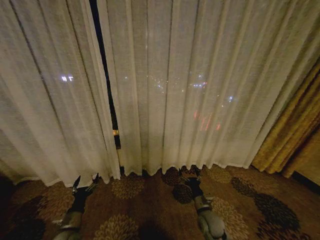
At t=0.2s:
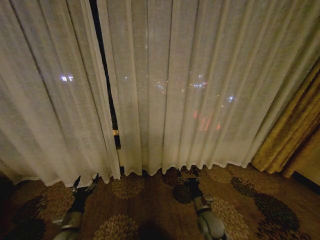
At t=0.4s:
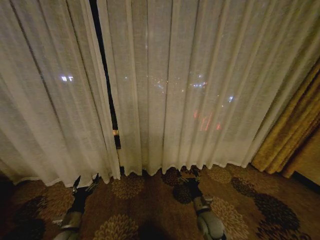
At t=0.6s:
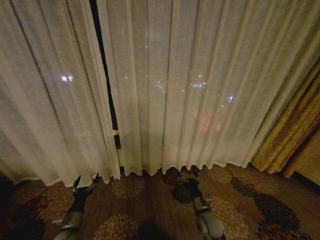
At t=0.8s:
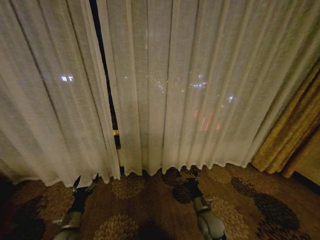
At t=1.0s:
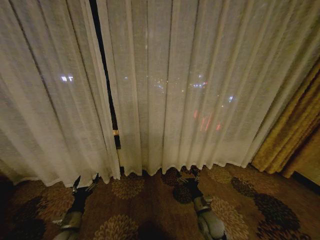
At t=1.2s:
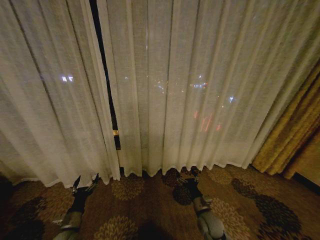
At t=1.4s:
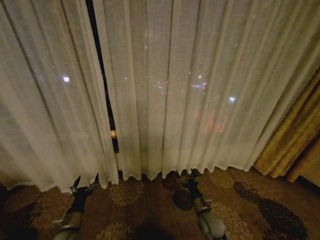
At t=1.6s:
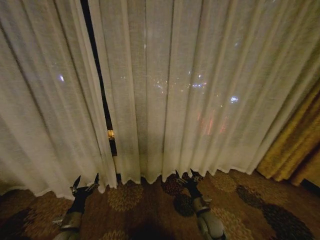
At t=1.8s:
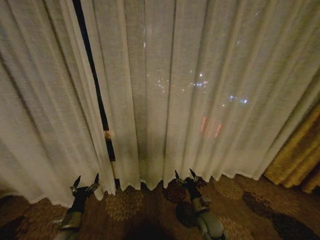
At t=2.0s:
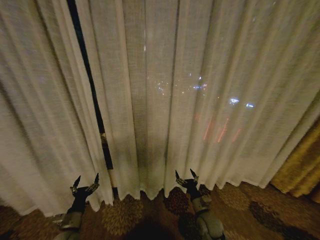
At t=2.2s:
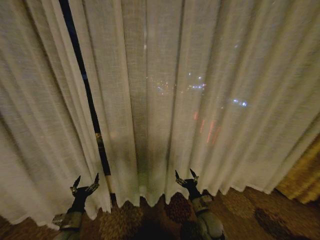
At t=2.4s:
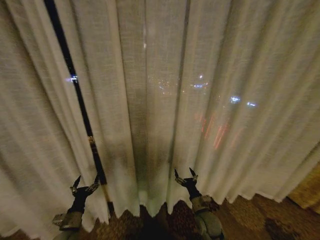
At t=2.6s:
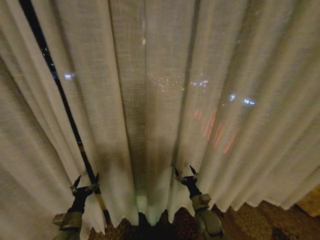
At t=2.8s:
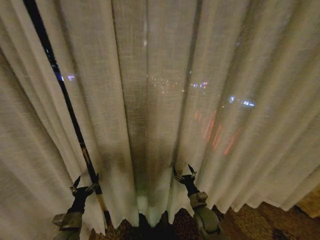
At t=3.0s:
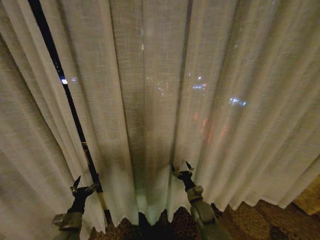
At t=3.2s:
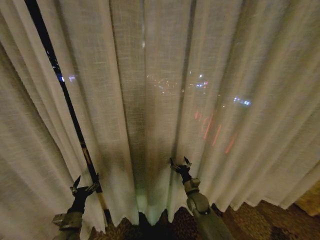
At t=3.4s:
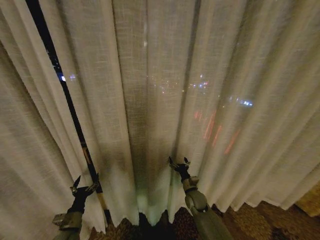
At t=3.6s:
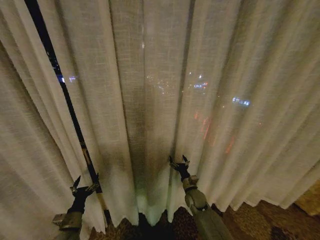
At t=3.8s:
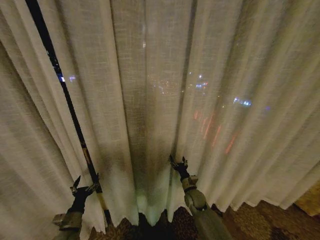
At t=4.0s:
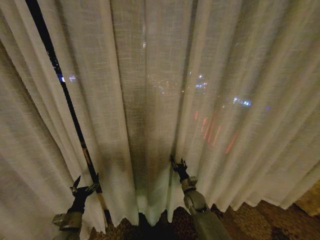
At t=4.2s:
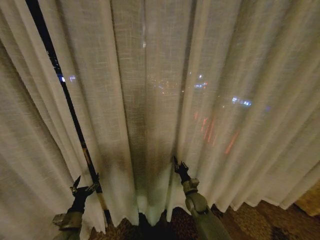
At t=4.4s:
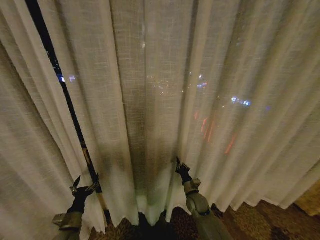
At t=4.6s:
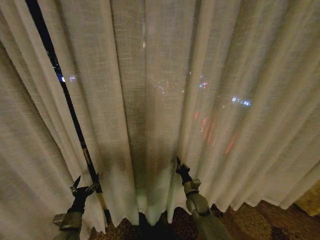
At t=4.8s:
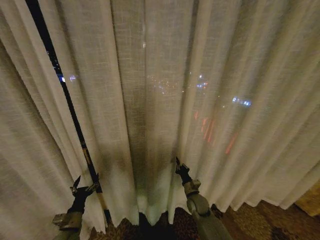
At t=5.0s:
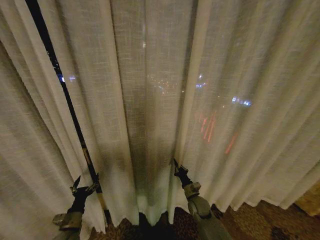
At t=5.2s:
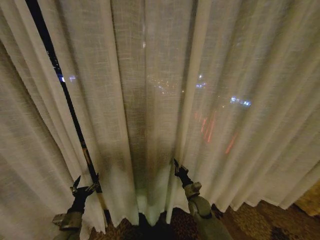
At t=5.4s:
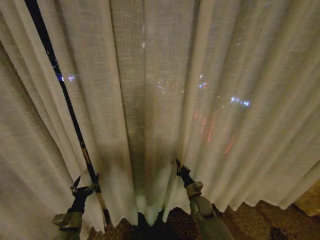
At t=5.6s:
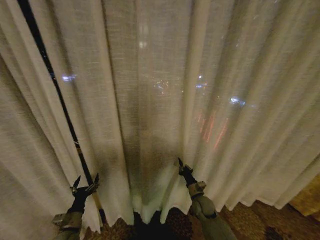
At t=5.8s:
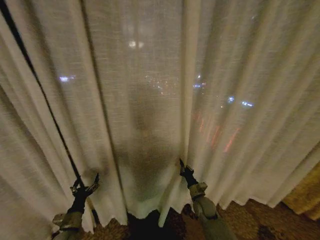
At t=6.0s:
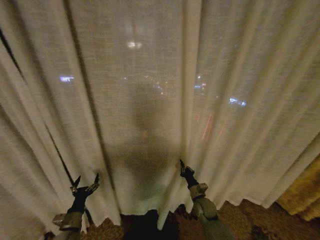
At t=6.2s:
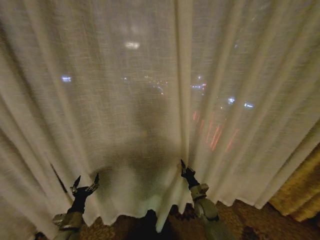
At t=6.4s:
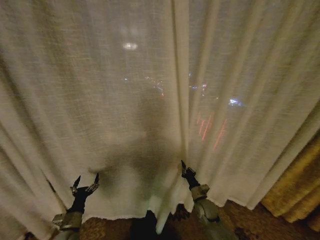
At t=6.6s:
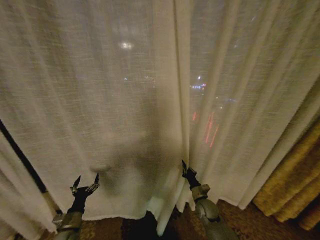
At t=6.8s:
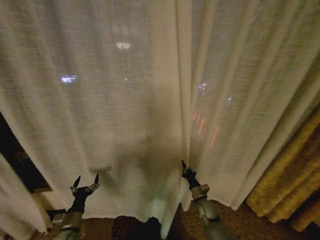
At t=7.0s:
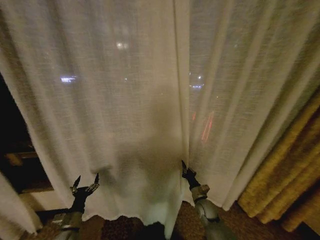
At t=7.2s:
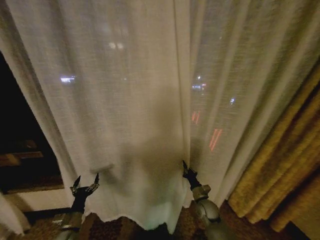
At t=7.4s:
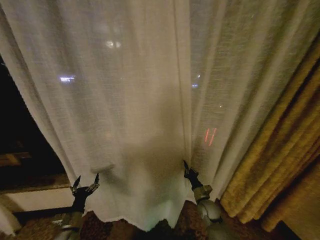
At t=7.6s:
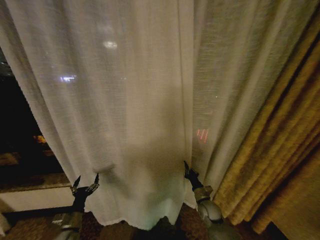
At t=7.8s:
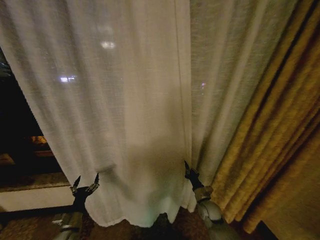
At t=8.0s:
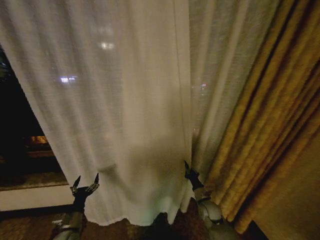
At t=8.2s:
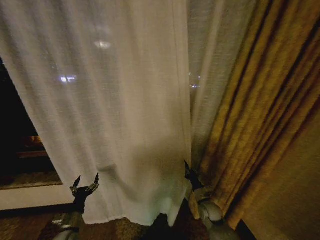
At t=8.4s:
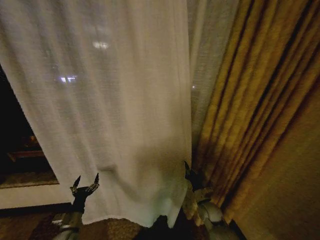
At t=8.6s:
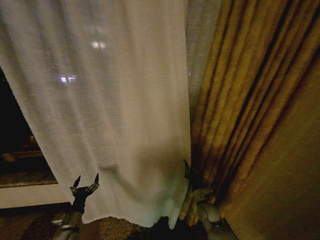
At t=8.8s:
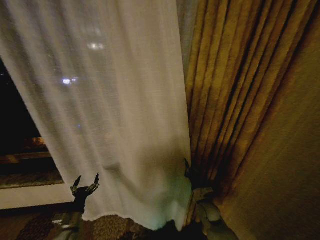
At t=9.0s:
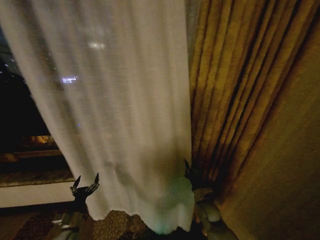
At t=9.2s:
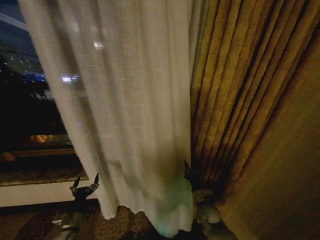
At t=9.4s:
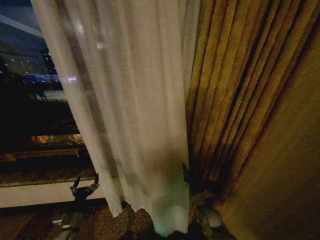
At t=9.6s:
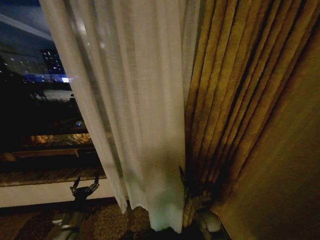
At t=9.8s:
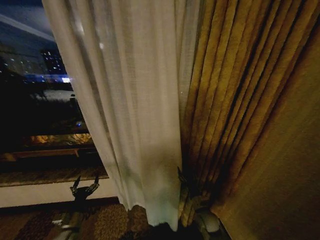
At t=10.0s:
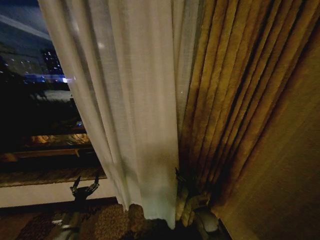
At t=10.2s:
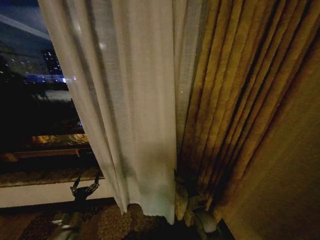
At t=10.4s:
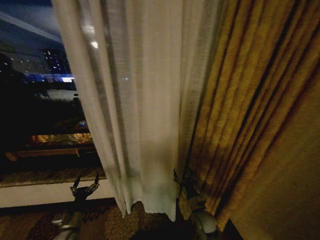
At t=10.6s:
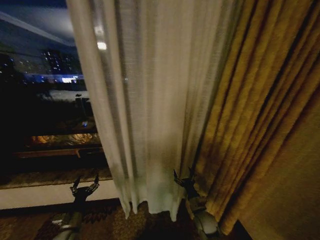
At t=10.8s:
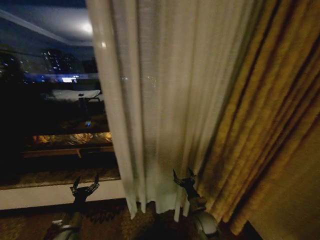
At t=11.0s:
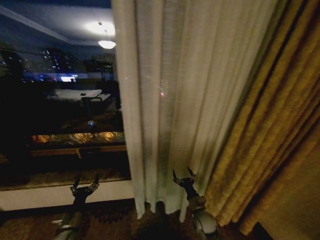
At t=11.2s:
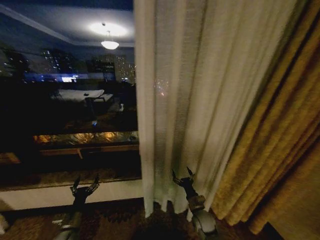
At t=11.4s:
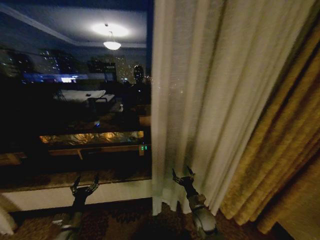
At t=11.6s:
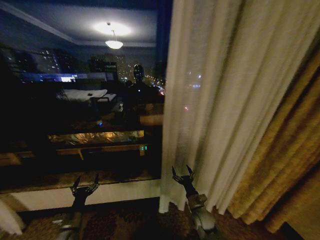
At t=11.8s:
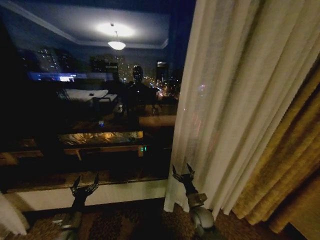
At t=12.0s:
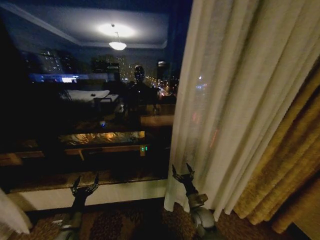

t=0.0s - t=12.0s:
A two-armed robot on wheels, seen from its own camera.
Task of the whole recording: Open the curtains by pulling them apart, changing their state from closed to fully open.
t=3.0s - t=4.4s: The right gripper closes.
t=9.0s - t=10.4s: The right gripper opens its fingers.

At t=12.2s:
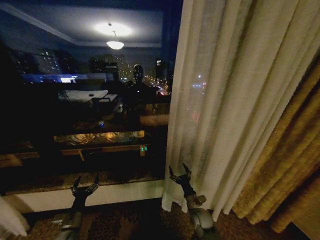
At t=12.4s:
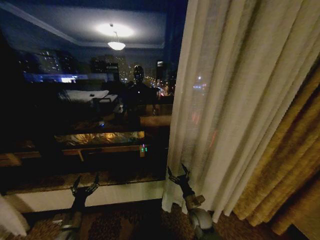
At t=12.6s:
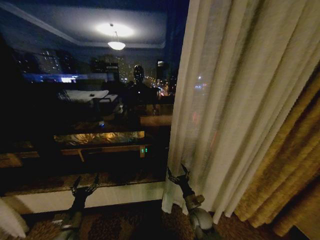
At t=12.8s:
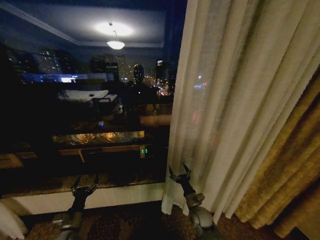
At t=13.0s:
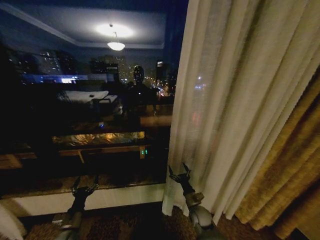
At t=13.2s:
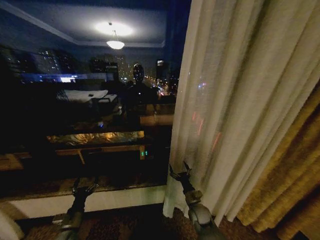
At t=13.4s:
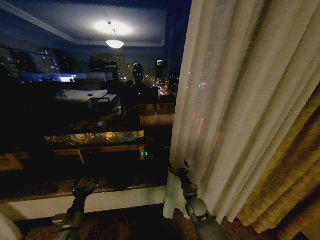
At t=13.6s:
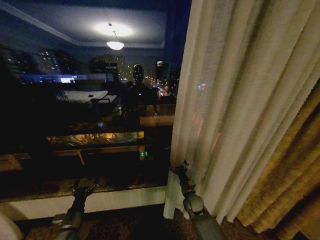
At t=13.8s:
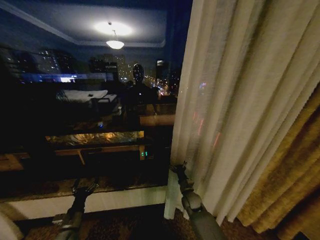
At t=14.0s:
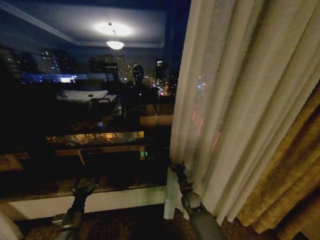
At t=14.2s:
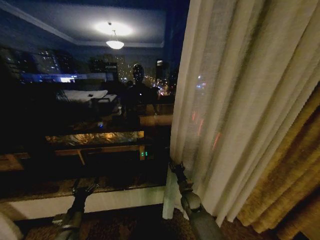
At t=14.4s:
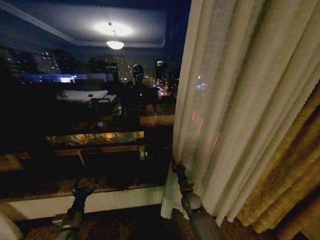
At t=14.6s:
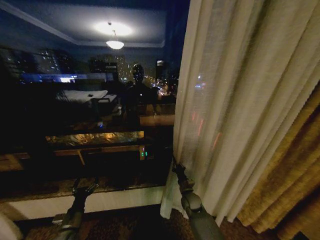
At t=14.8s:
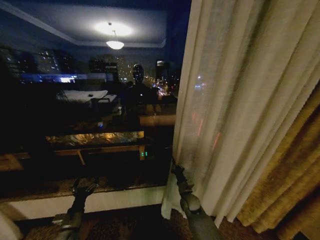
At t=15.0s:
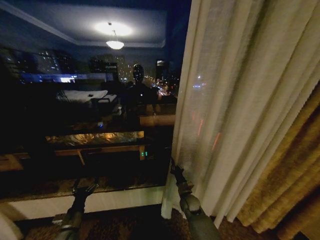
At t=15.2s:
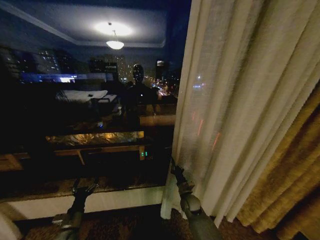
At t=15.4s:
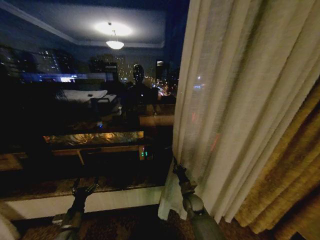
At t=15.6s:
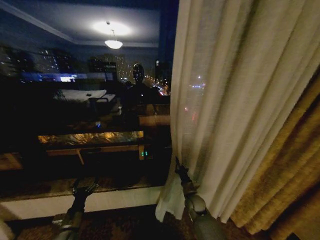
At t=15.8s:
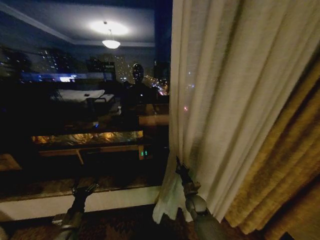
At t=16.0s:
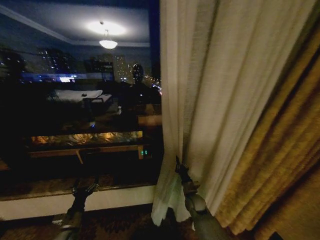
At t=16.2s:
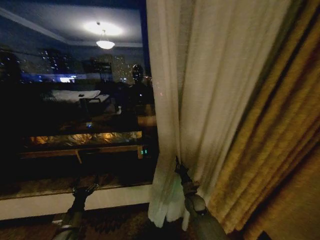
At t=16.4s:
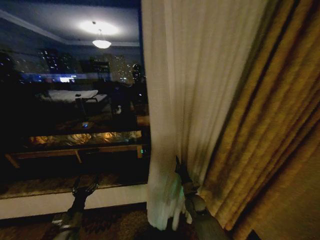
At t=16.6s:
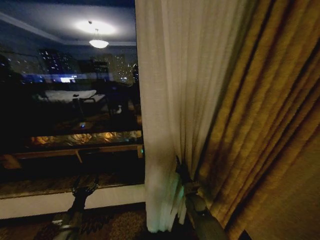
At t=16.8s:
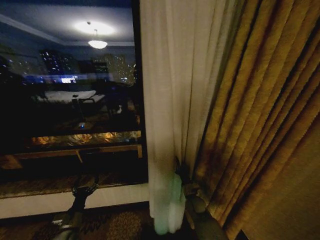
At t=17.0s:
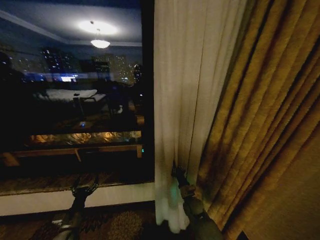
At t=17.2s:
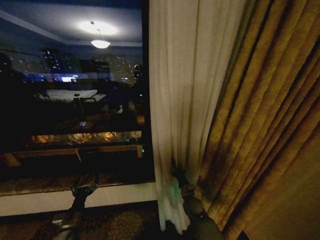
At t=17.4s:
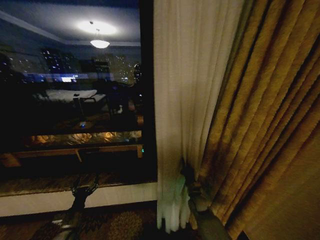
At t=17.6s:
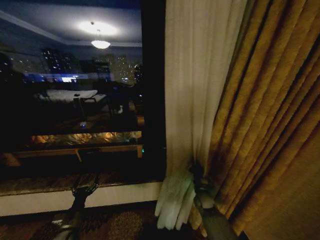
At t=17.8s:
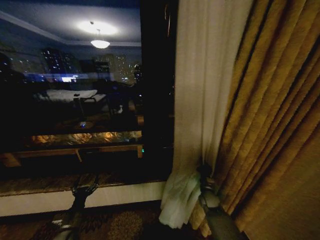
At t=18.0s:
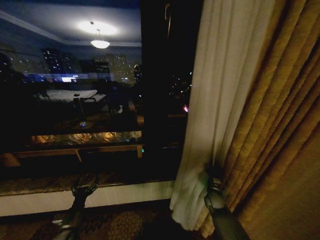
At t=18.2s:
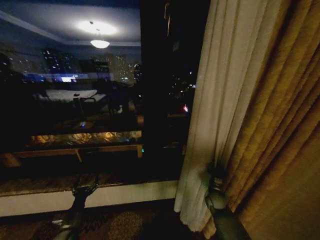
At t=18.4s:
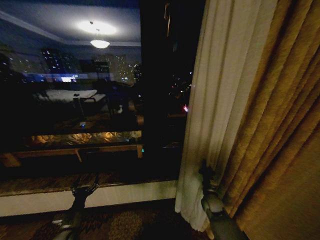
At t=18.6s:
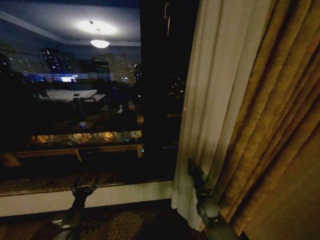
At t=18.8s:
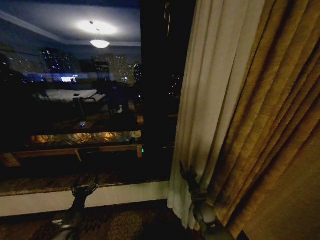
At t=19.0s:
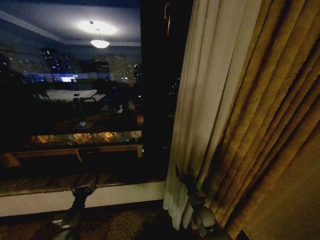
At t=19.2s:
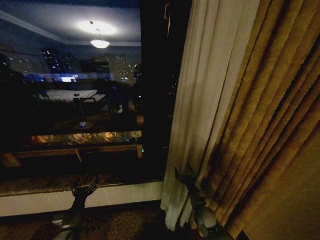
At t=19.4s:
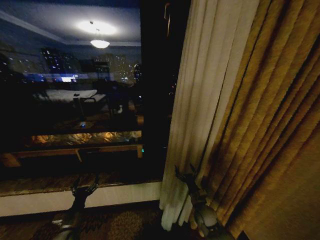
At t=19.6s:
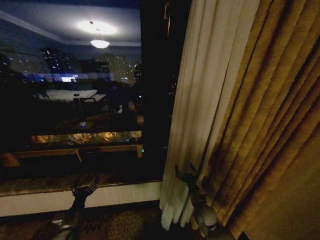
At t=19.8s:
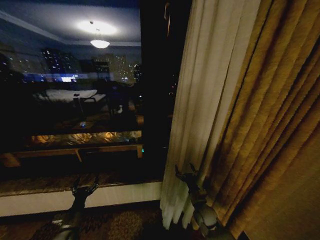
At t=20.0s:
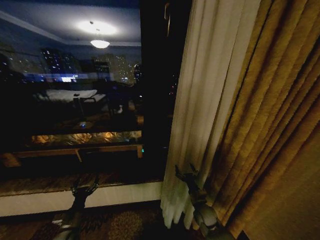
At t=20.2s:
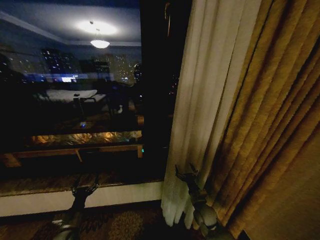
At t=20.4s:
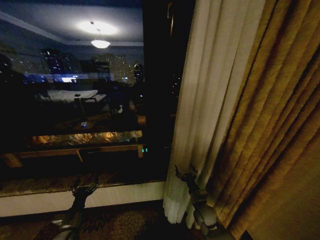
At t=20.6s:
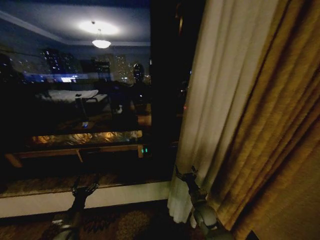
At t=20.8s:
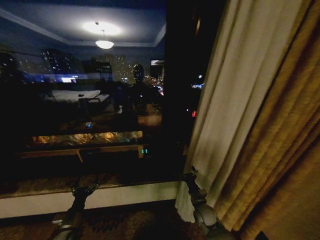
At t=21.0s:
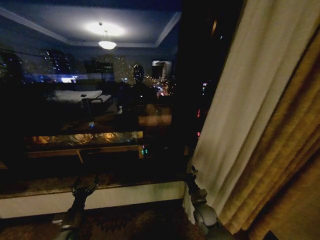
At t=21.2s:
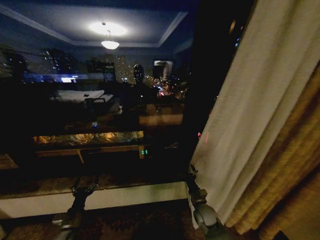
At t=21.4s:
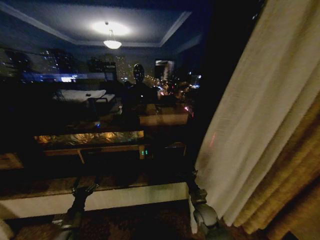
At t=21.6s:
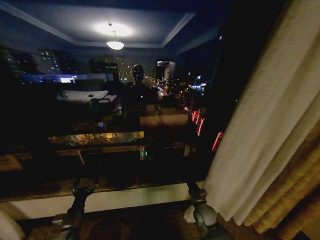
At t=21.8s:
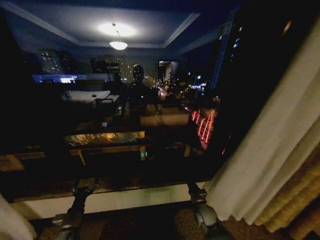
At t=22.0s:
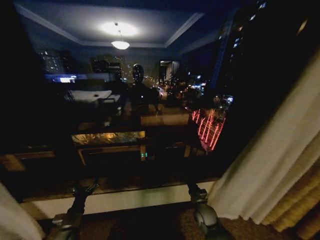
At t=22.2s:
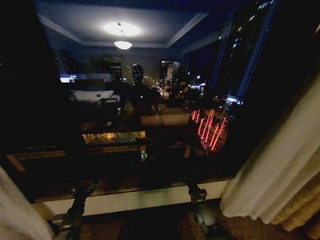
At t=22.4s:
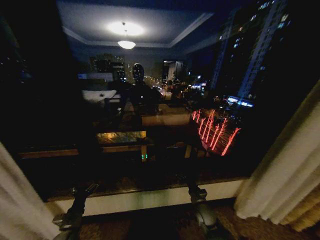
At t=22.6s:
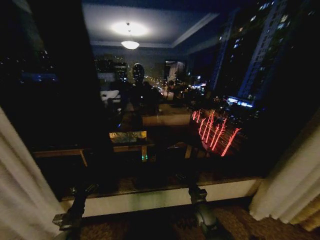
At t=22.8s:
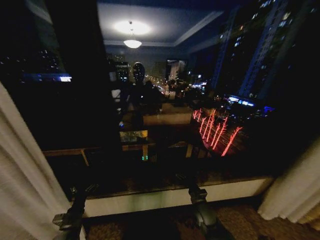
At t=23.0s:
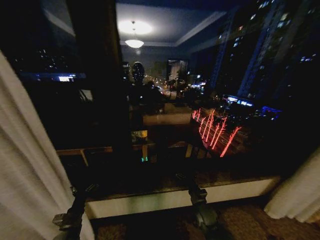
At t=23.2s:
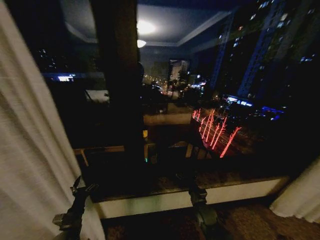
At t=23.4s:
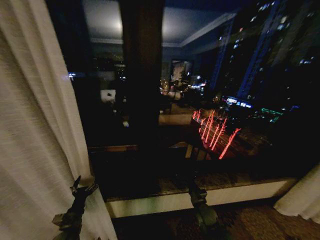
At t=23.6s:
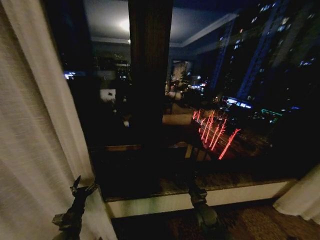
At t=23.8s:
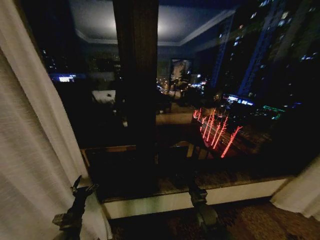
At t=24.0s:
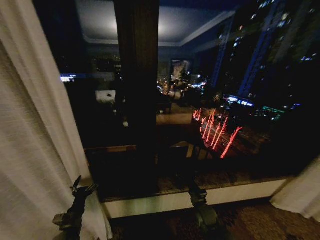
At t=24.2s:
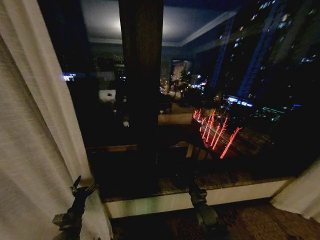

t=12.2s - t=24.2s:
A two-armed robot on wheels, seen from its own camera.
Task of the whole recording: Open the curtains by pulling them apart, changing their state from closed to fully open.
t=12.2s - t=13.8s: The right gripper shifts about 10 cm forward.
t=13.8s - t=15.2s: The right gripper closes its fingers.
t=16.6s - t=18.2s: The right gripper moves to the right, approximately 10 cm.
t=18.2s - t=19.8s: The right gripper moves to the left and backward, some 10 cm, and opens up.
